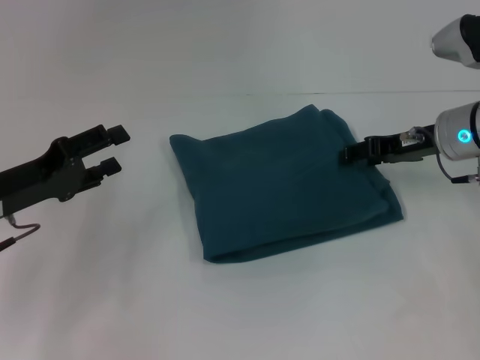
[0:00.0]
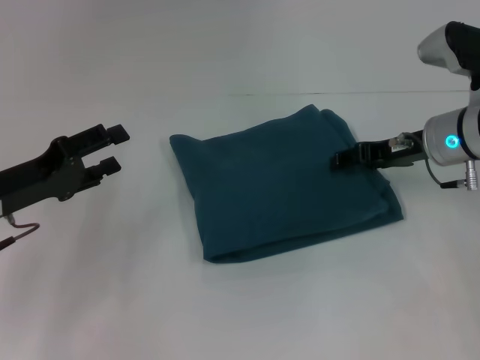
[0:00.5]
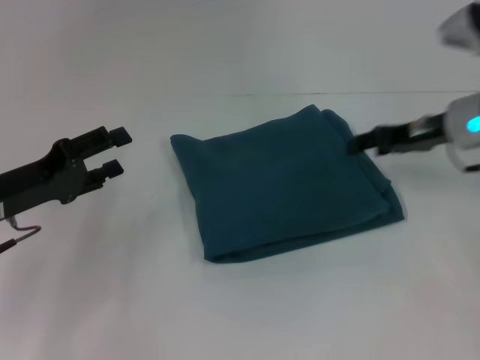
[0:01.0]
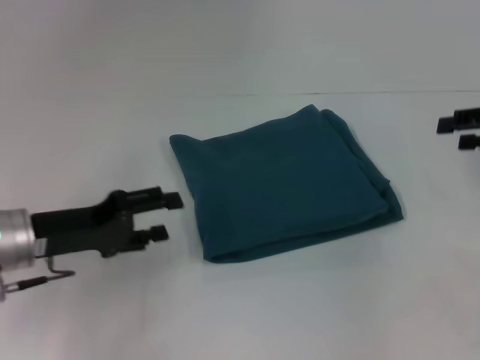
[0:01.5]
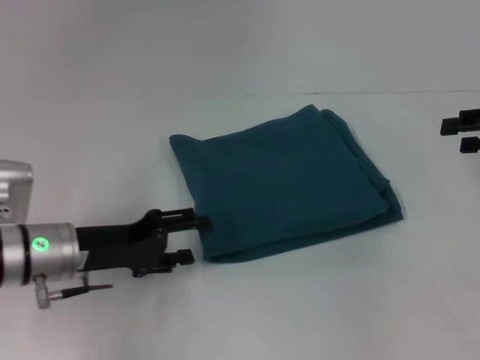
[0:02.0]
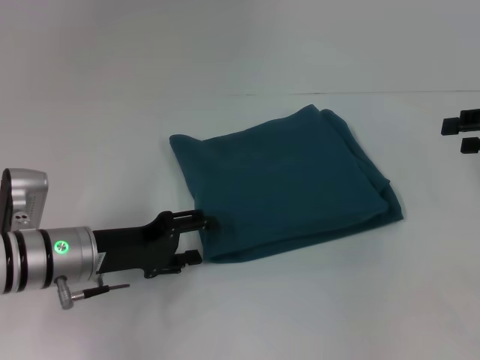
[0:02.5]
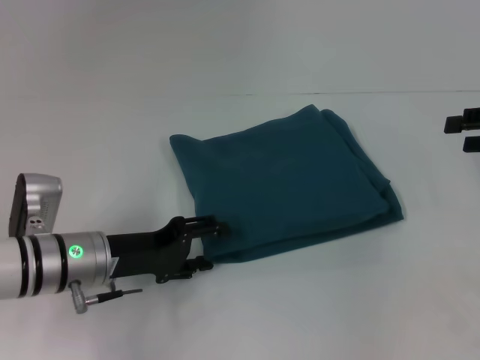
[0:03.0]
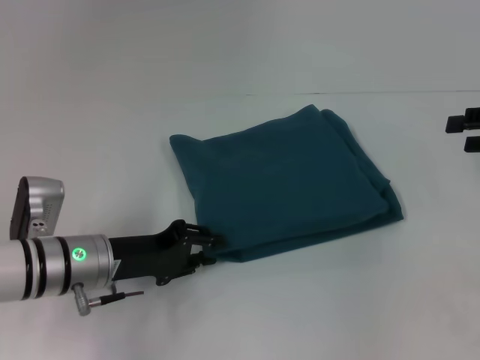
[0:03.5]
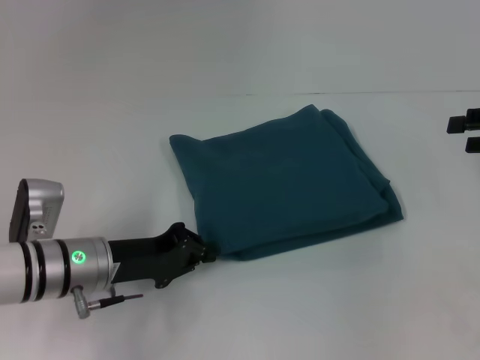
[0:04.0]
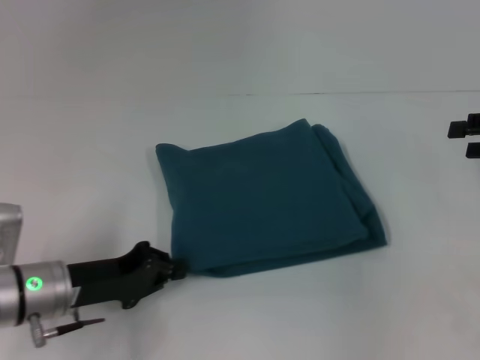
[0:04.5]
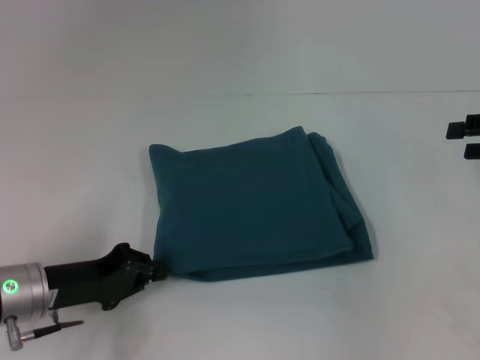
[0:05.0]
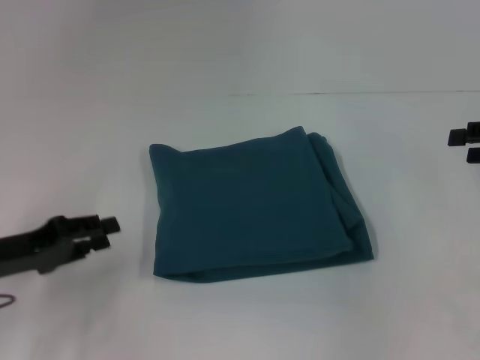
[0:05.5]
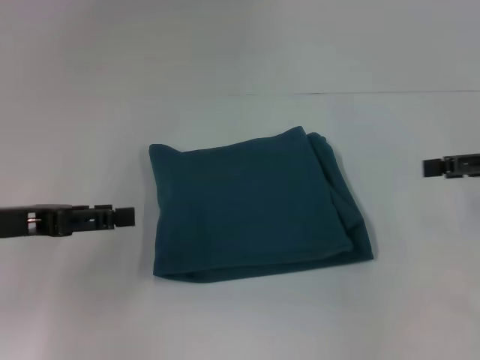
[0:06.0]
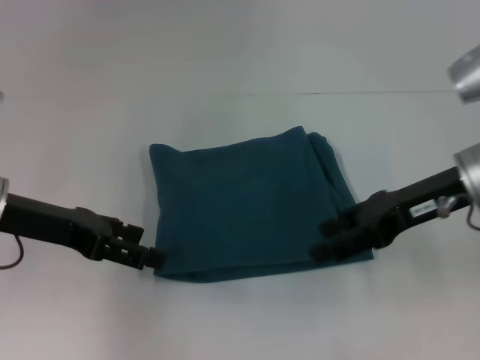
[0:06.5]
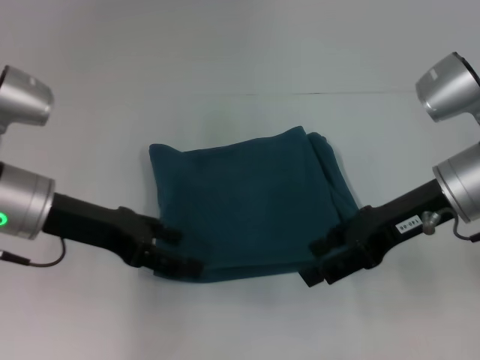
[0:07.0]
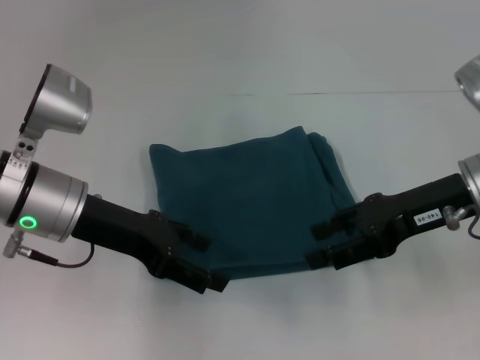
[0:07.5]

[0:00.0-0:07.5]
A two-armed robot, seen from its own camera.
0:00.0 to 0:02.0: The left gripper is displaced to the right by approximately 5 cm. The right gripper is displaced to the right, upward and backward by some 15 cm.
0:02.0 to 0:04.0: The left gripper closes up.
0:04.0 to 0:05.5: The left gripper goes roughly 10 cm to the left.
0:05.5 to 0:07.5: The left gripper moves to the right, upward and forward, some 15 cm, and opens up. The right gripper goes some 15 cm to the left.

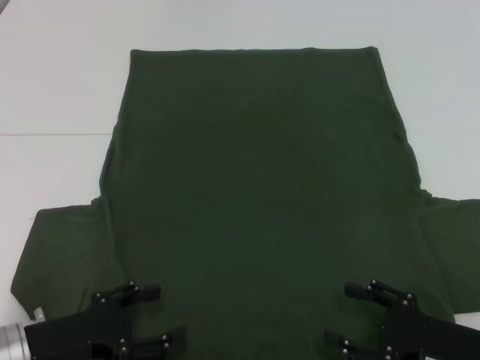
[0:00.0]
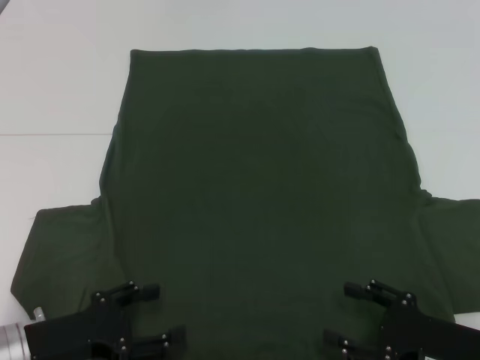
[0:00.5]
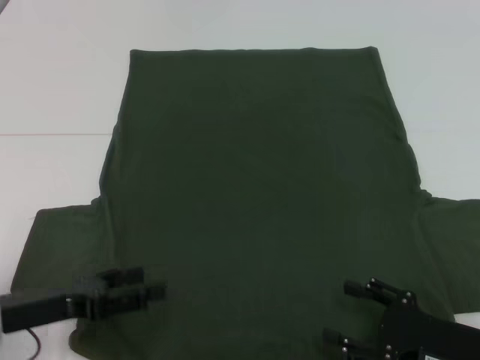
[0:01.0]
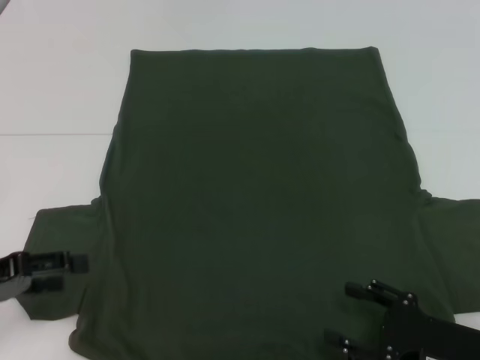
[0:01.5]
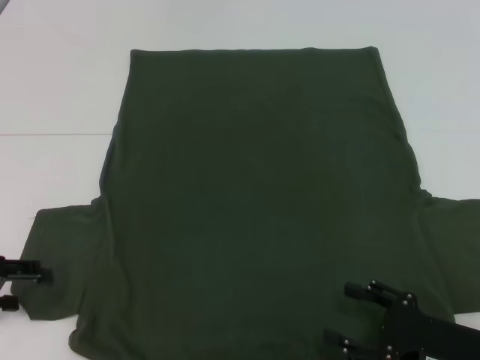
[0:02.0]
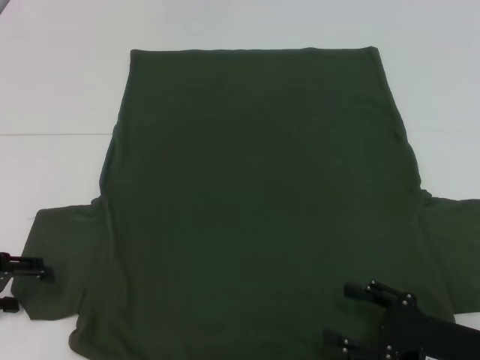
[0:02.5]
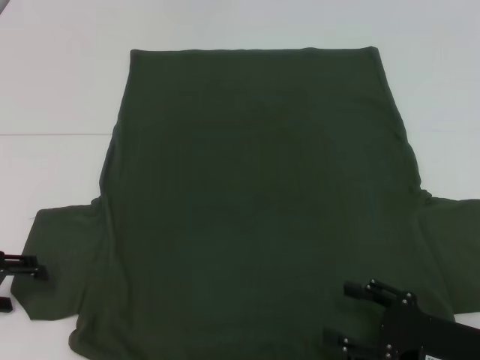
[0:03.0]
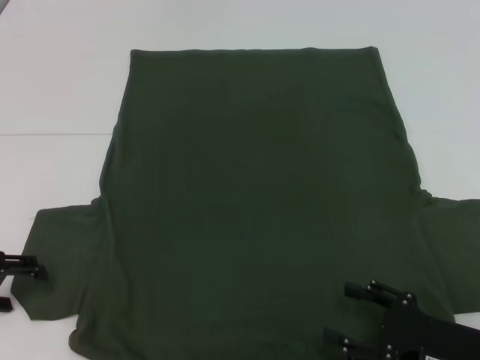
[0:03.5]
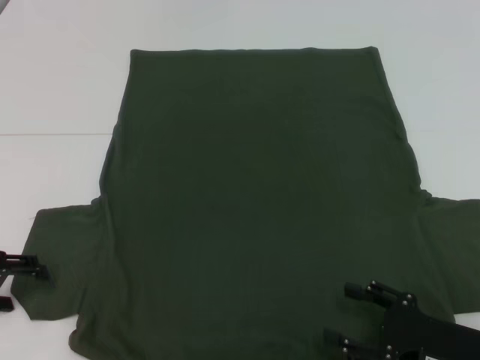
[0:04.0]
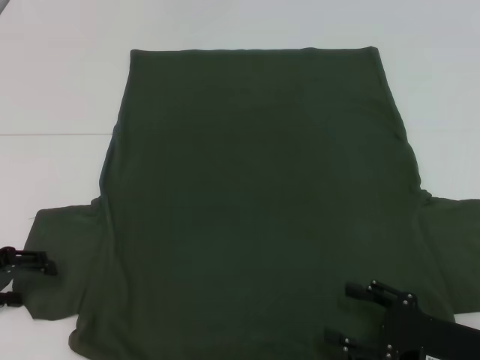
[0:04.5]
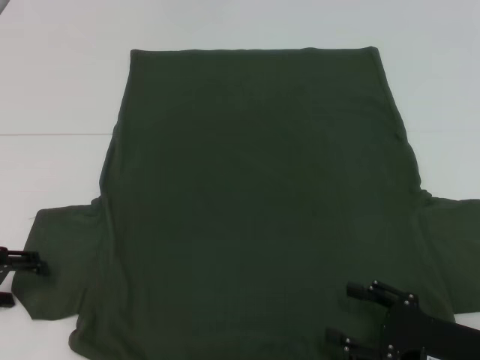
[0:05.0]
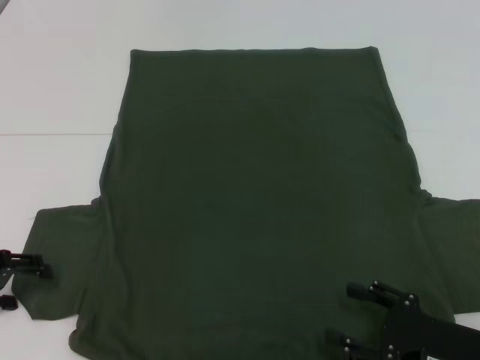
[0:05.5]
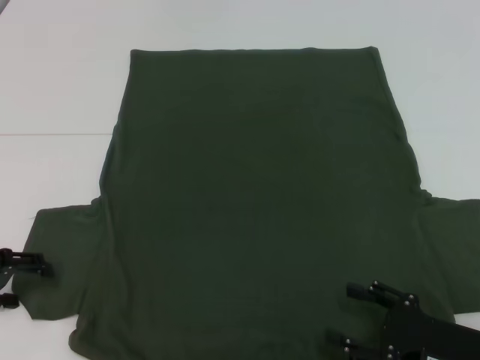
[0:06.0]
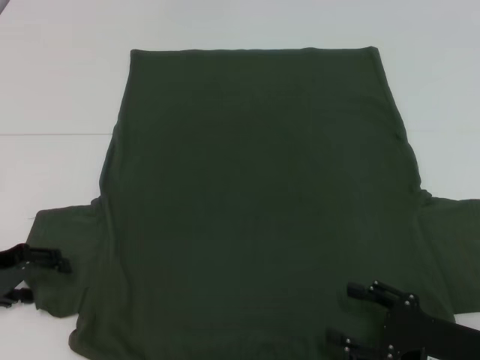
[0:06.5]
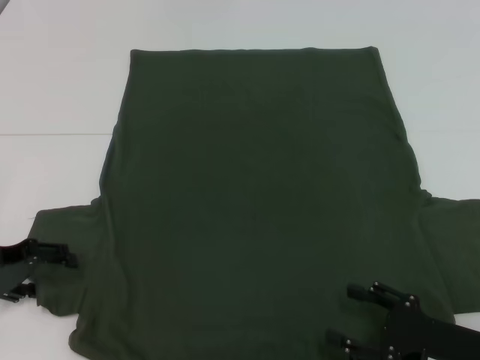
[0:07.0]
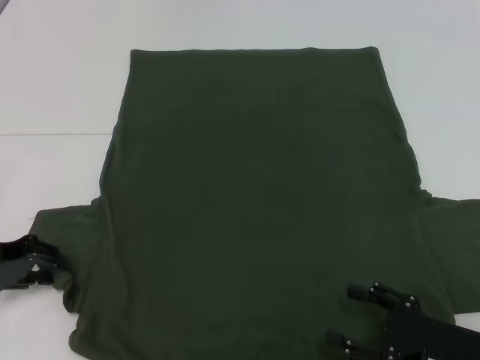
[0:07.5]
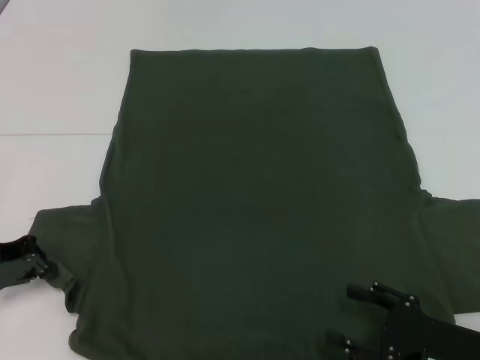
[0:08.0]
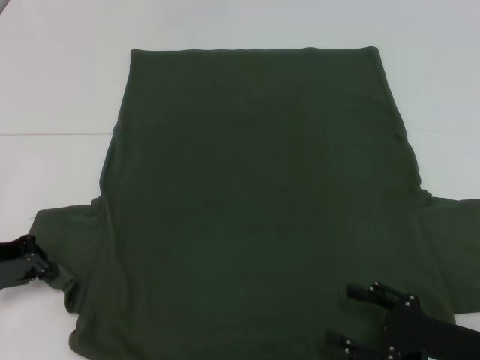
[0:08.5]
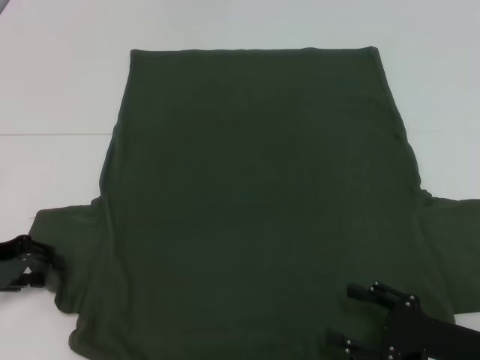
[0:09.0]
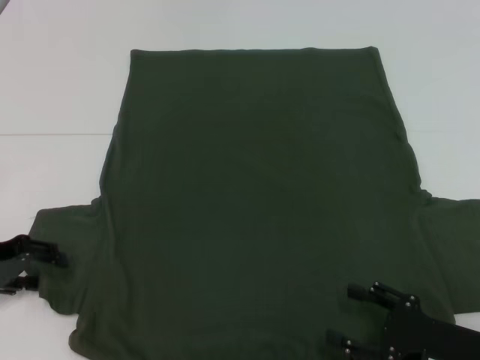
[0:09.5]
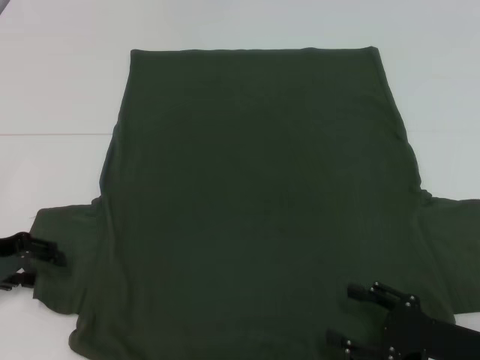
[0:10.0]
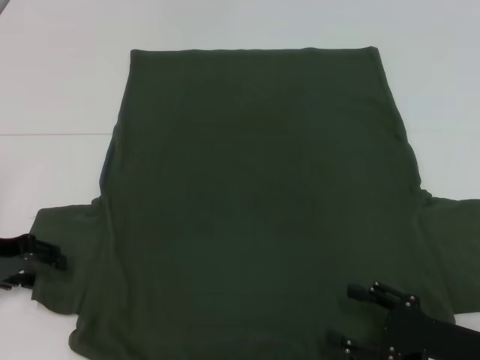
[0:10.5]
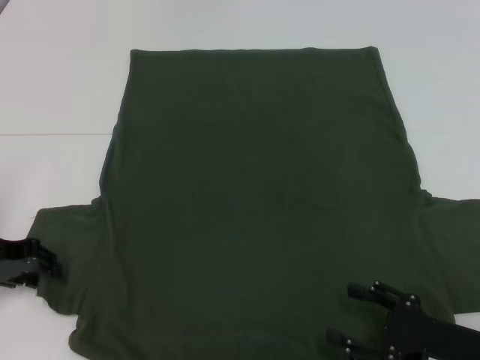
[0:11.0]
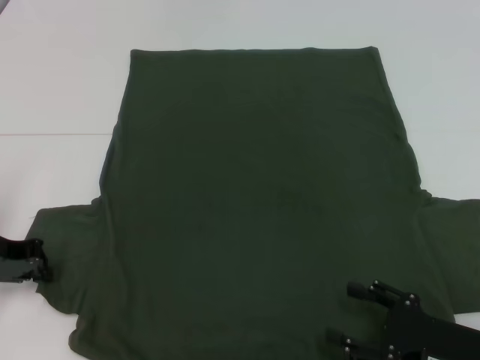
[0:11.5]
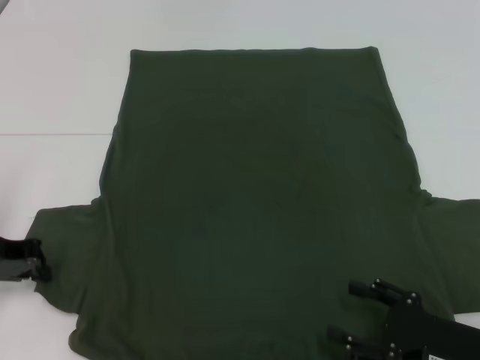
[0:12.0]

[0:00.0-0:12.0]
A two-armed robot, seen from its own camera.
0:00.0 to 0:02.0: The left gripper goes approximately 15 cm to the left, upward and forward.
0:04.0 to 0:06.0: Both grippers stay about where they are.
0:06.0 to 0:08.0: The left gripper closes its fingers.
0:08.0 to 0:10.0: The left gripper opens.
0:10.0 to 0:12.0: The left gripper closes its fingers.

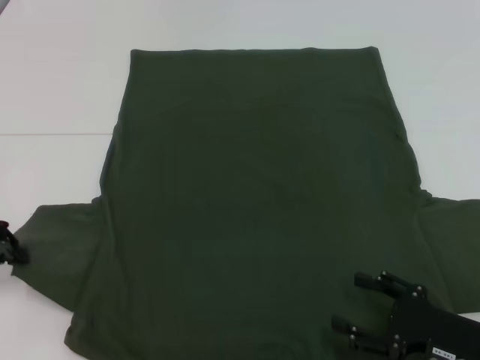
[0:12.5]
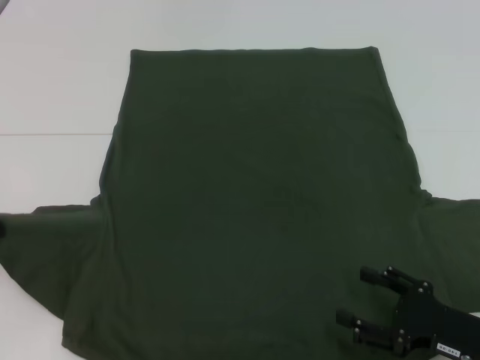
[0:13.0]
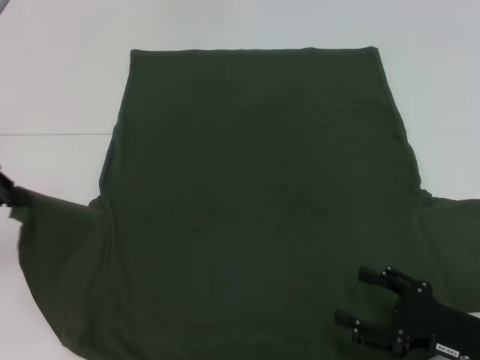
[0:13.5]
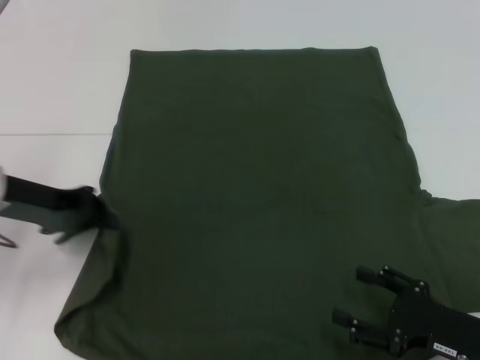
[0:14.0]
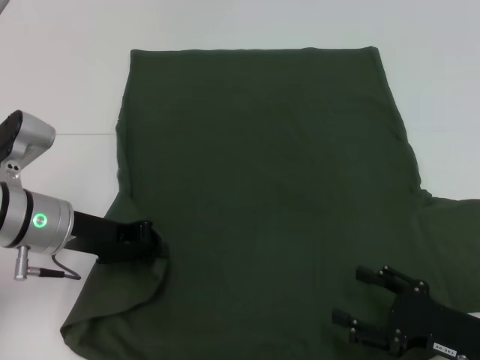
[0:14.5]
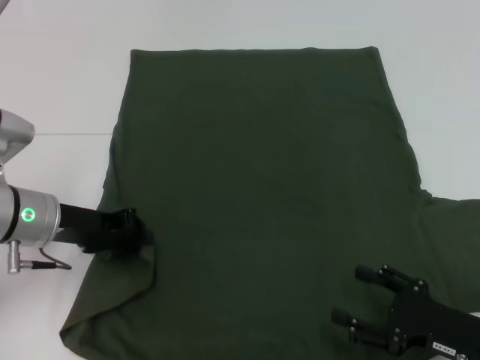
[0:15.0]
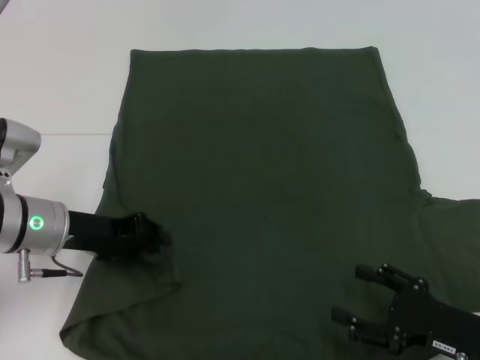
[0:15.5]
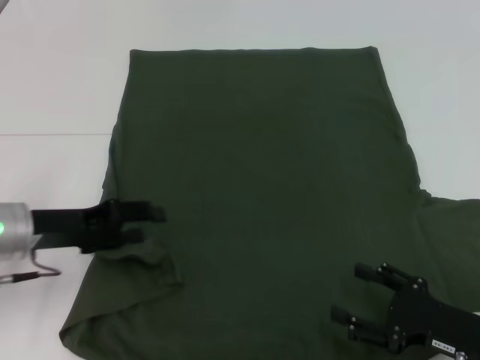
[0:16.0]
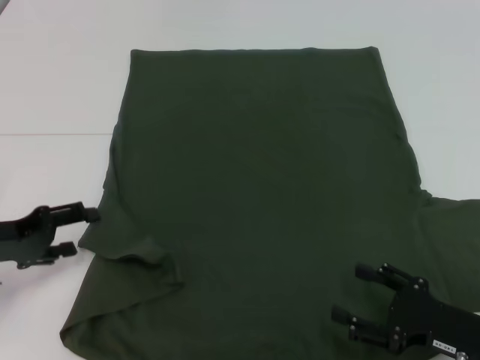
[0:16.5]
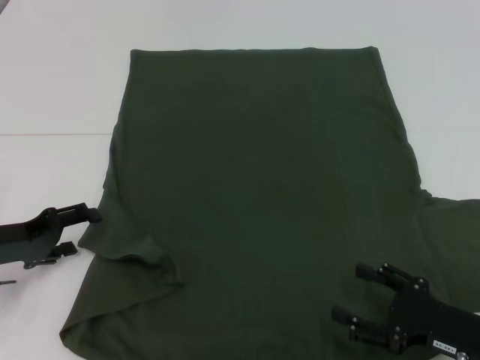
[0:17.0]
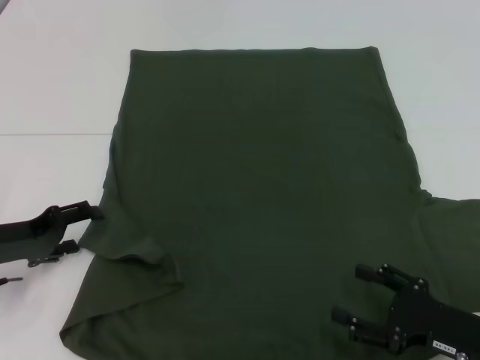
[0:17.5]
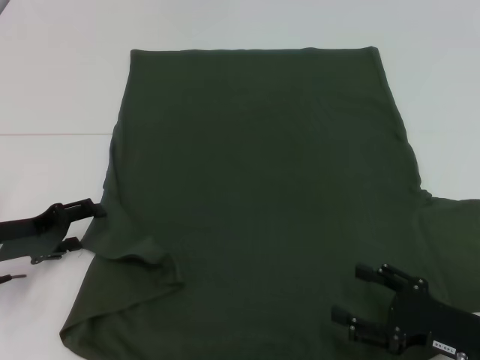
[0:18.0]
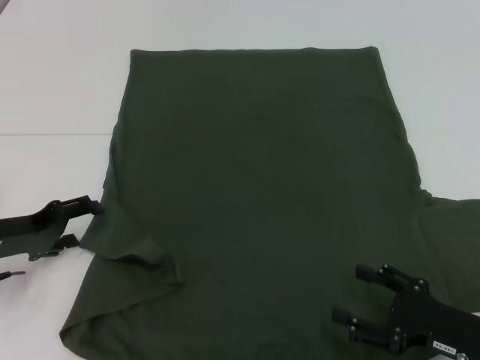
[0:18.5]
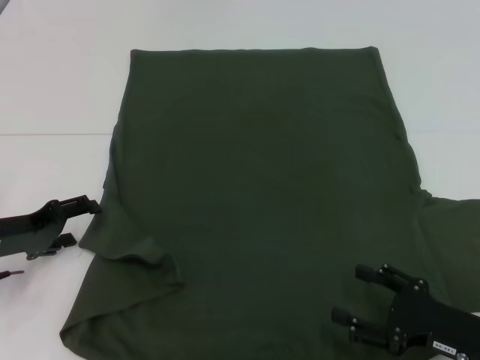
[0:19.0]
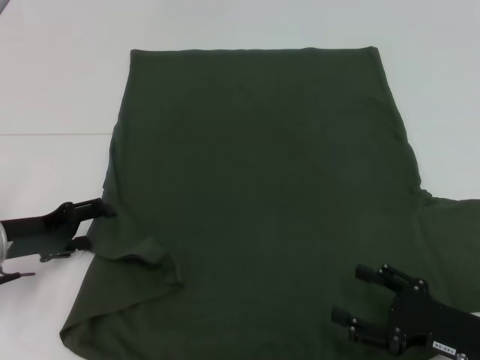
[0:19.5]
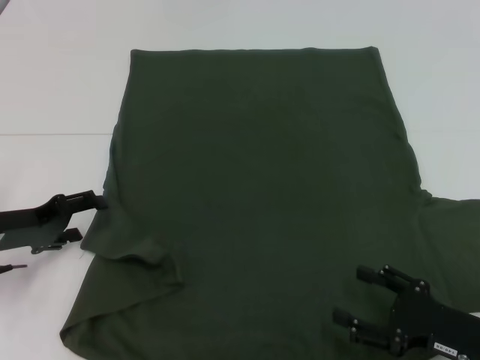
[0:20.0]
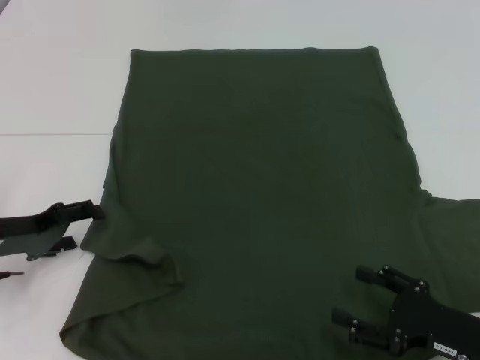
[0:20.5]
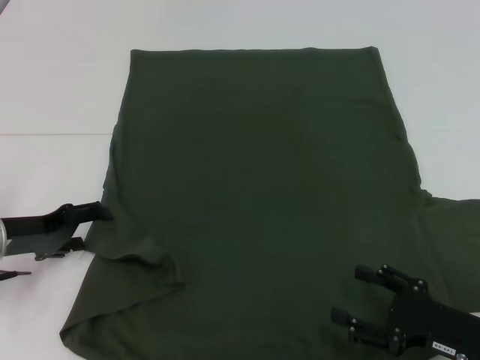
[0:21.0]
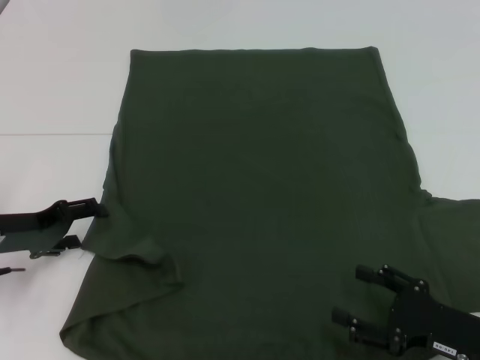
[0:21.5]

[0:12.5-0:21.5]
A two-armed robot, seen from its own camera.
Step, 0:12.5 to 0:17.0: Fold the bottom left sleeve with your left hand.
0:12.5 to 0:14.5: The left gripper travels to the right by about 15 cm.
0:14.5 to 0:17.0: The left gripper goes some 10 cm to the left, and opens up.
0:17.0 to 0:19.5: The grippers make only small movements.
0:19.5 to 0:21.5: Both grippers stay put.
